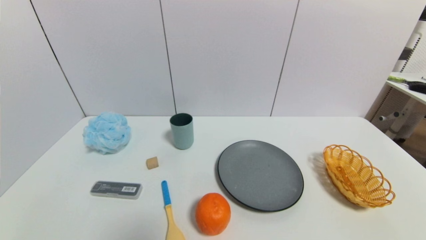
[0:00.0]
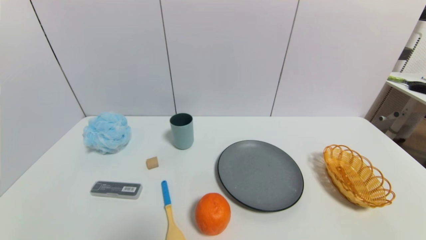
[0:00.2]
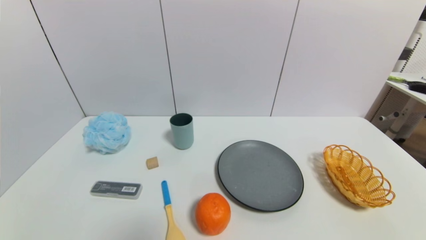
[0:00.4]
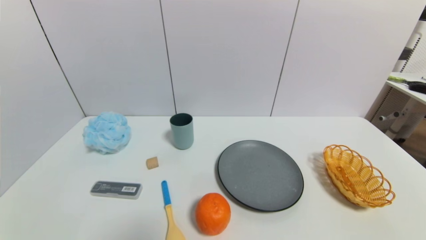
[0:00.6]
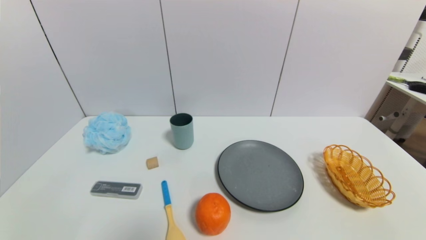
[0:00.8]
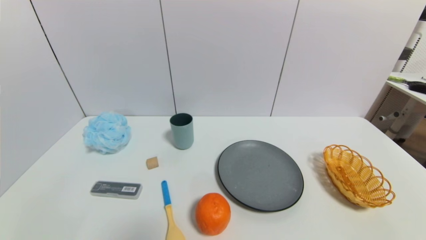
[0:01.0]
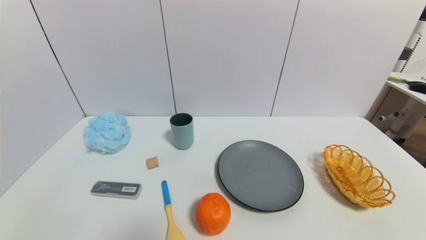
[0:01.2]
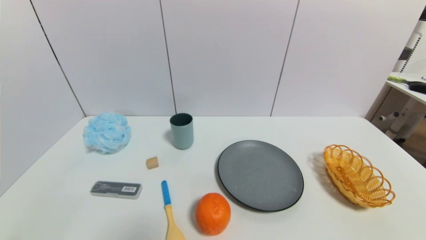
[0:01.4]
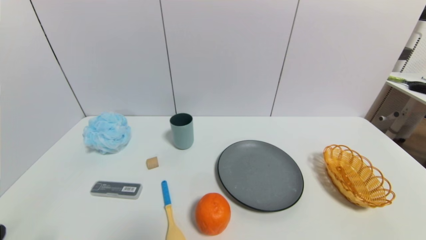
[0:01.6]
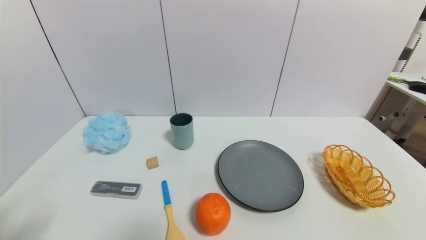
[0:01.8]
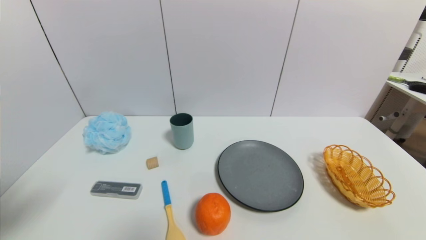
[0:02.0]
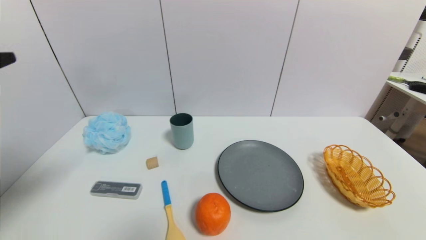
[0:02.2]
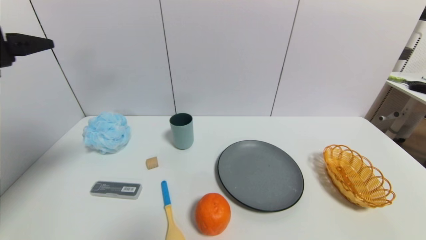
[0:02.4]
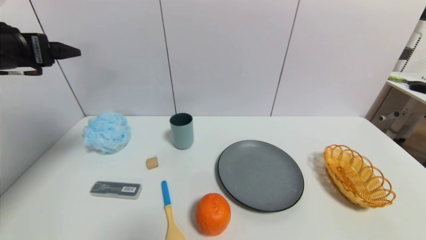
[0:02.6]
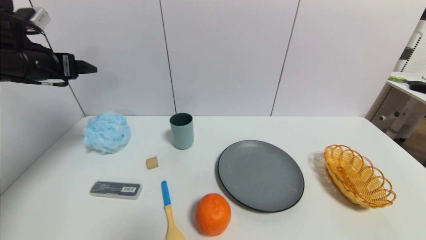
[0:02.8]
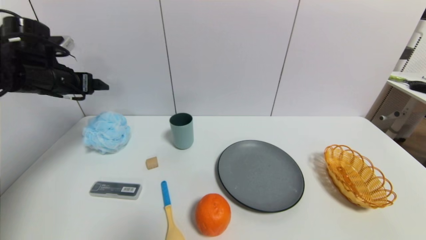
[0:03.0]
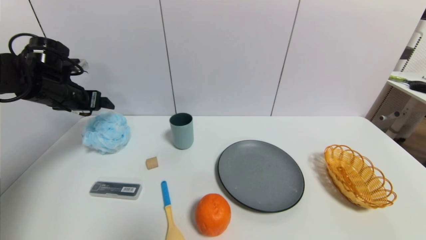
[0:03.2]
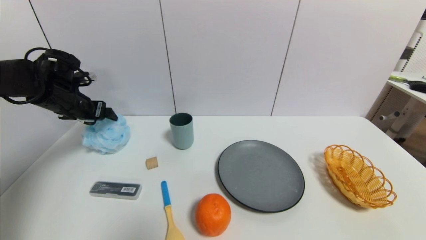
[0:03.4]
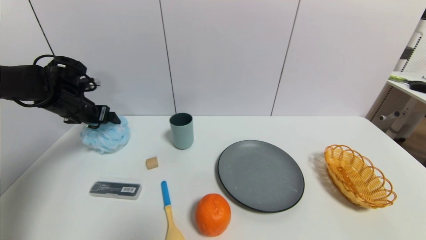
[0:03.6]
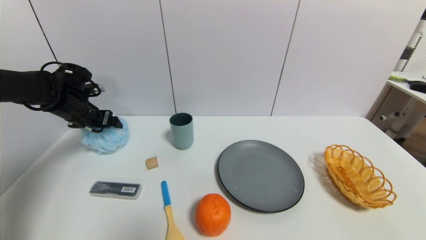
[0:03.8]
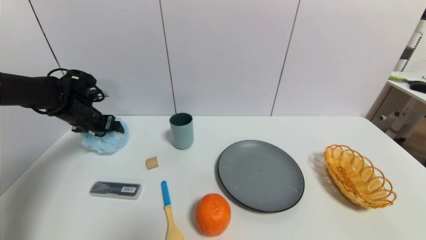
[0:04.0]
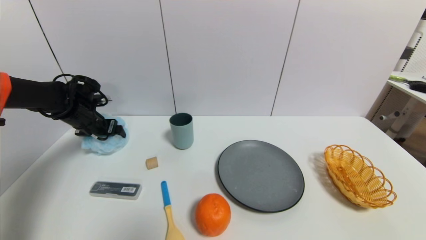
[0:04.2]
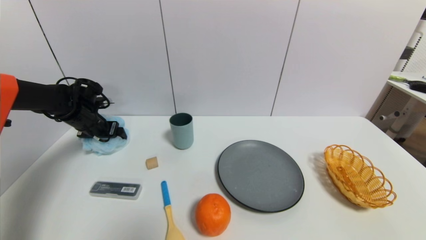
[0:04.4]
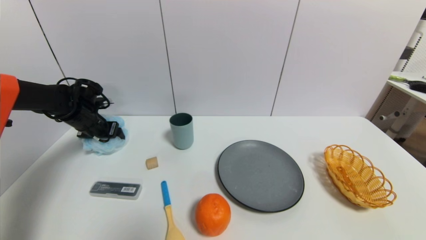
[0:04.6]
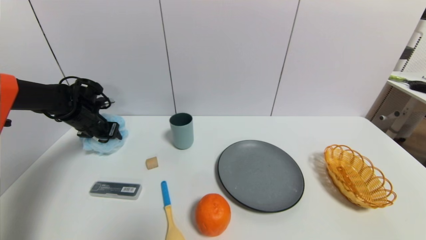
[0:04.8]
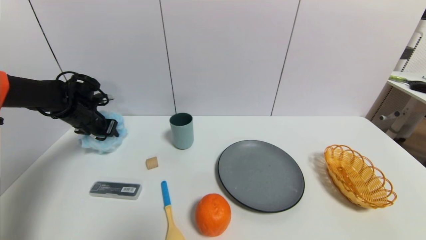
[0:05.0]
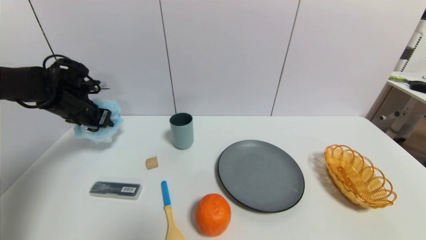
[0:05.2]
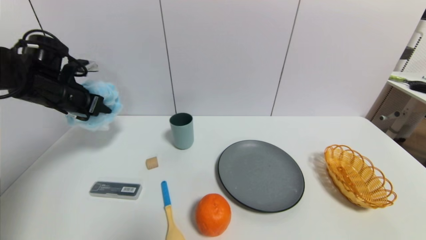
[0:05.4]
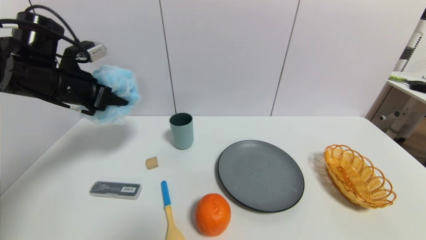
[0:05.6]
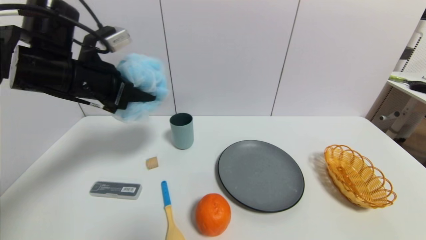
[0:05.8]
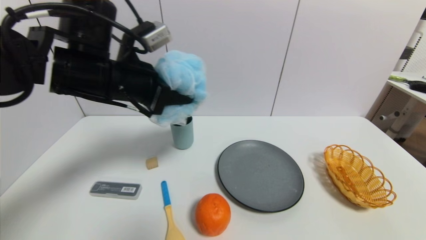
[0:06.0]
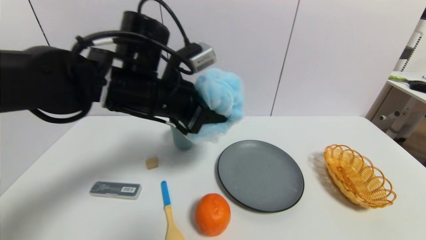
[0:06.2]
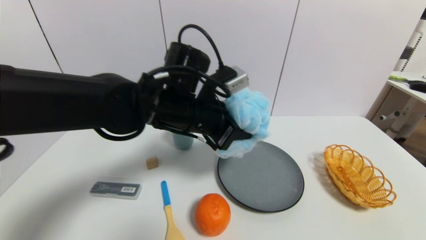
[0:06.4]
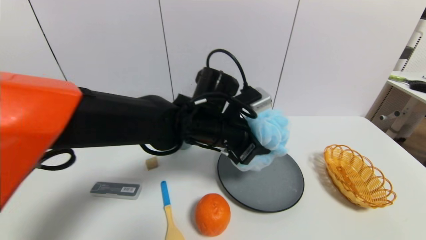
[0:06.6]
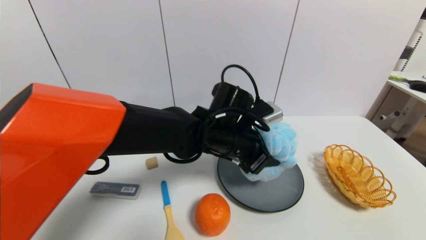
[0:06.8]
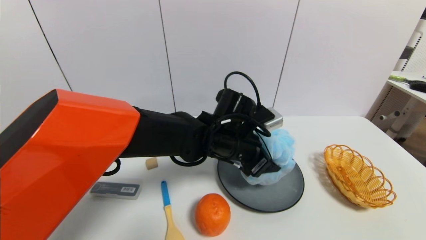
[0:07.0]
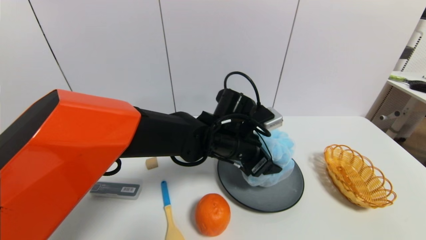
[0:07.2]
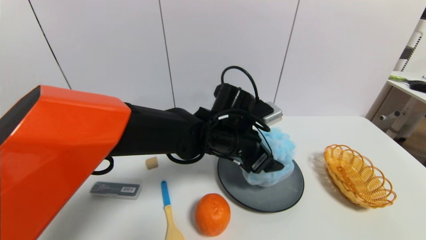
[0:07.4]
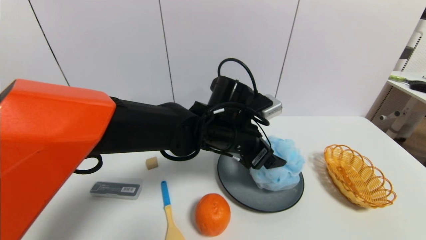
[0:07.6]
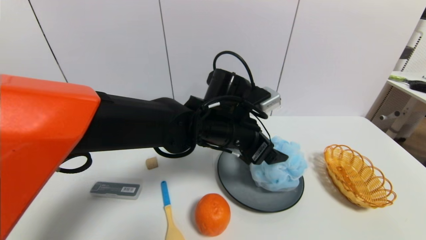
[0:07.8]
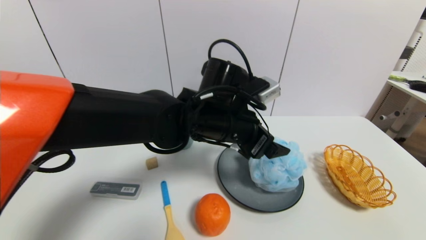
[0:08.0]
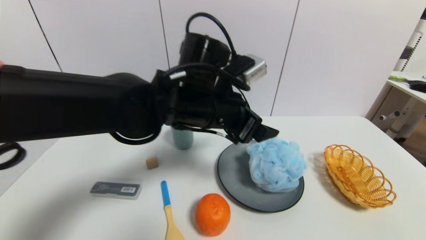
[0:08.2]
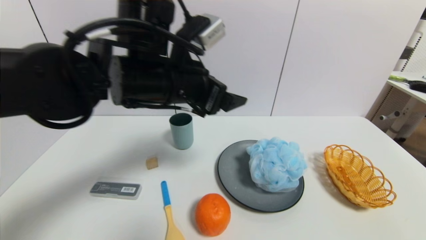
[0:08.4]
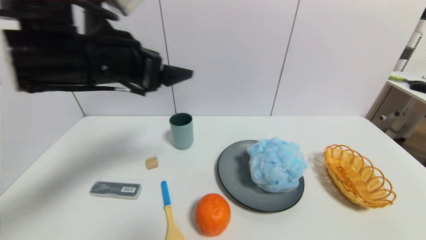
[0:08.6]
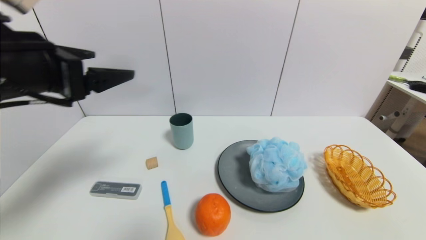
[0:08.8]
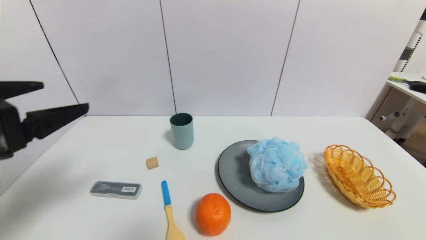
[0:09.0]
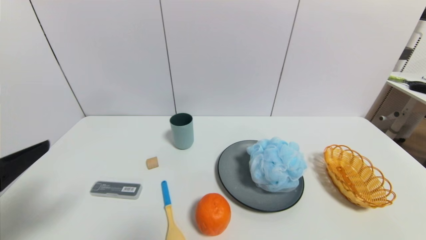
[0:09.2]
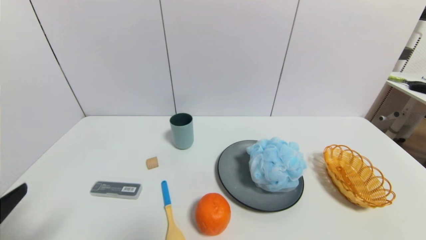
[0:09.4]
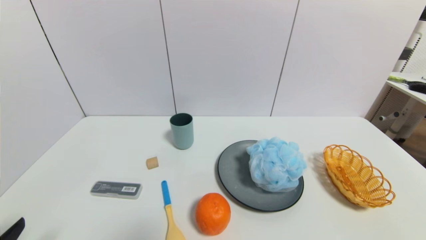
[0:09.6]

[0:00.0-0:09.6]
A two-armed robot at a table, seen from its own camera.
Task of the whole recording: use a gripper to pick the target object and place on the gray plate.
Step, 0:00.0 to 0:04.6: Grasp the shower sphere with the left gripper.
Step, 0:04.8 to 0:07.8: Place the shower sphere on the gray plate with the left gripper.
0:01.6 to 0:03.2: The left gripper is displaced forward by roughly 40 cm.
0:03.2 to 0:04.8: The left gripper heads downward, covering about 10 cm, and closes.
0:04.8 to 0:06.4: The left gripper moves to the right and backward, roughly 30 cm.
0:06.4 to 0:08.0: The left gripper opens.
0:08.0 to 0:09.6: The left gripper shifts roughly 40 cm to the left and backward.

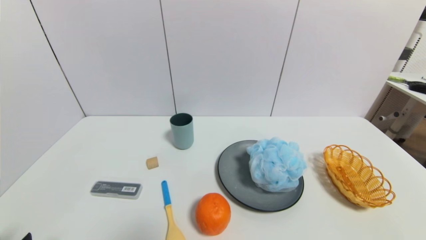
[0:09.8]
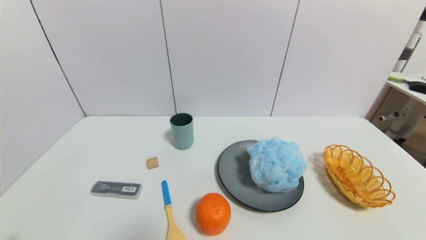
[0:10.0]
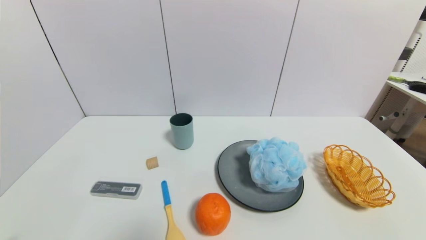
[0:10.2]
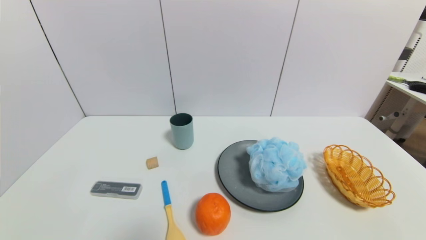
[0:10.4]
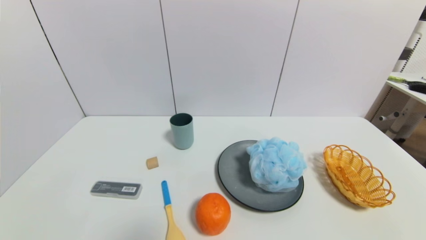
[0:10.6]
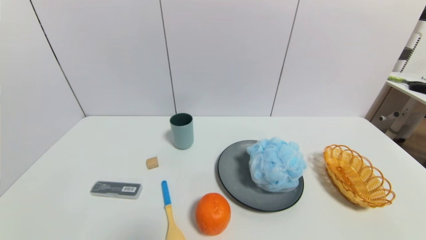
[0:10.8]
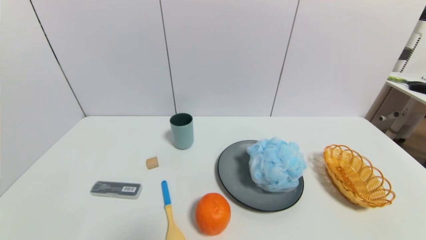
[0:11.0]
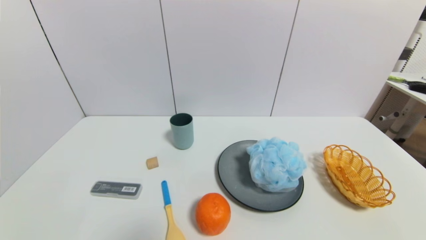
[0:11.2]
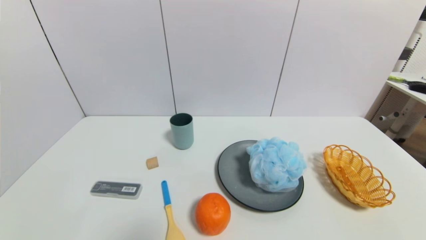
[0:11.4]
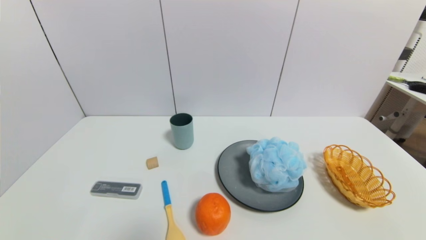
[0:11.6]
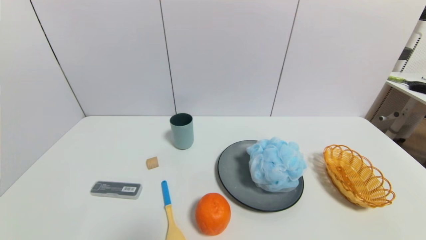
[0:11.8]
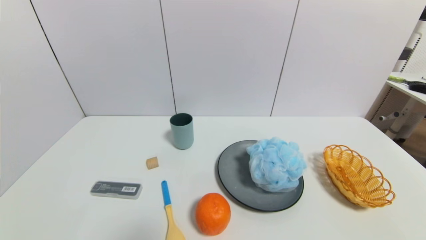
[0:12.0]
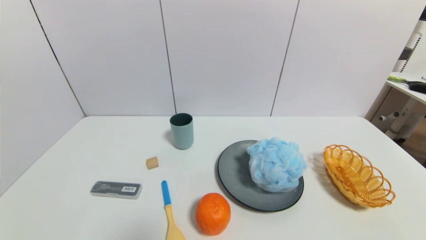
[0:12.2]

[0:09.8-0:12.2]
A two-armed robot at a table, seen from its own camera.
Task of the whole recording: use a gripper to pick the target object and place on the gray plate.
0:11.0 to 0:12.2: Both grippers stay about where they are.
